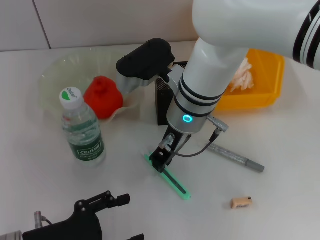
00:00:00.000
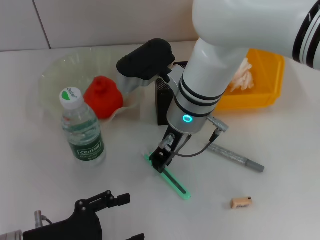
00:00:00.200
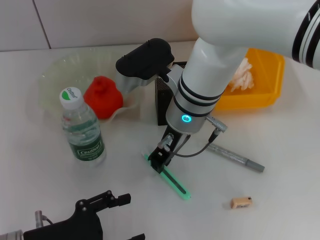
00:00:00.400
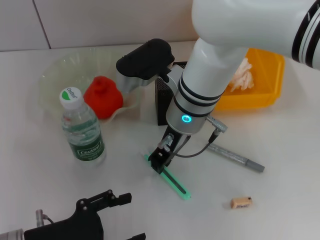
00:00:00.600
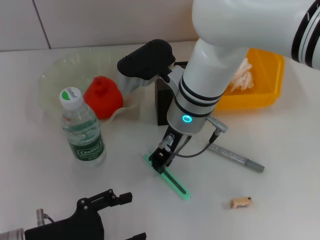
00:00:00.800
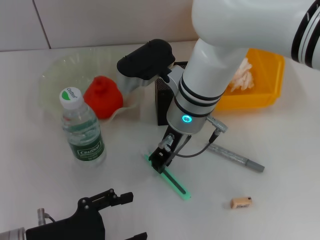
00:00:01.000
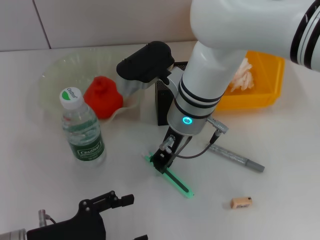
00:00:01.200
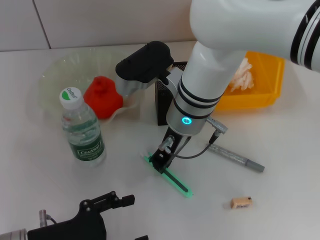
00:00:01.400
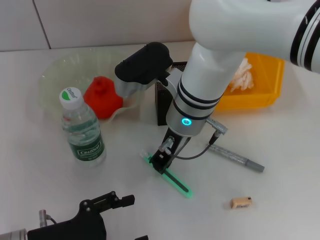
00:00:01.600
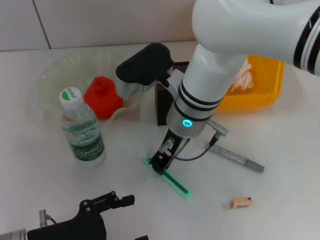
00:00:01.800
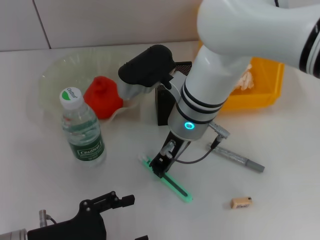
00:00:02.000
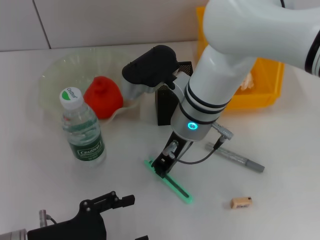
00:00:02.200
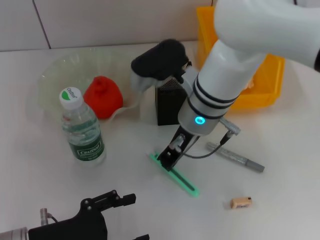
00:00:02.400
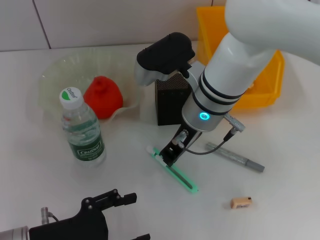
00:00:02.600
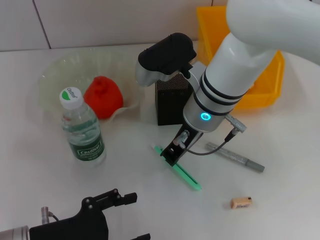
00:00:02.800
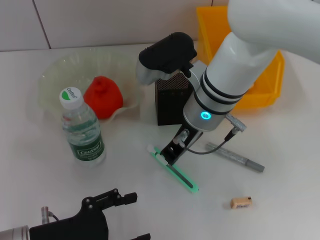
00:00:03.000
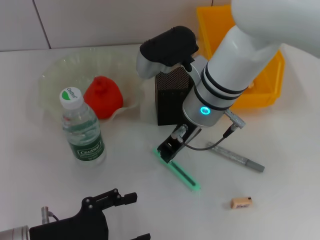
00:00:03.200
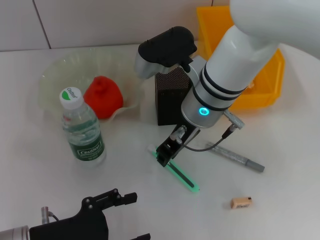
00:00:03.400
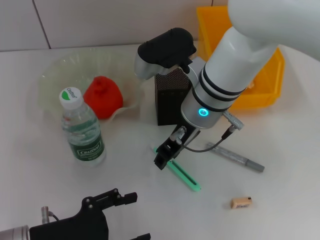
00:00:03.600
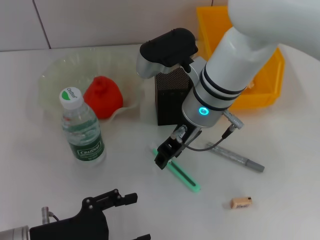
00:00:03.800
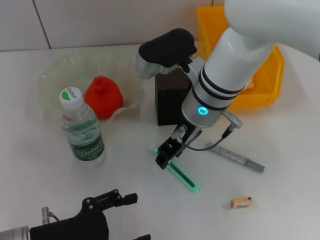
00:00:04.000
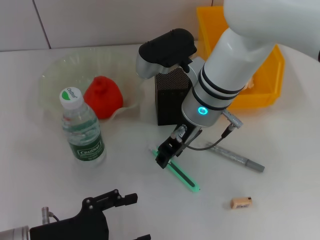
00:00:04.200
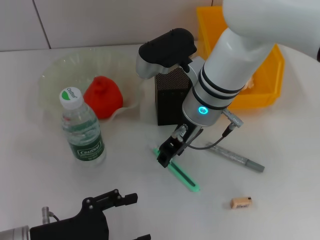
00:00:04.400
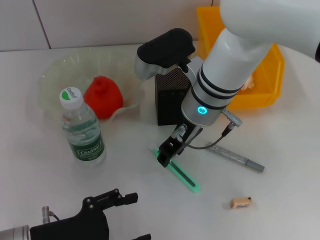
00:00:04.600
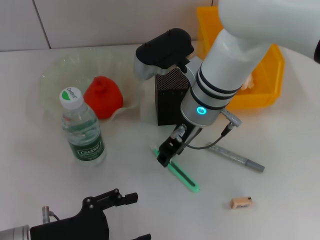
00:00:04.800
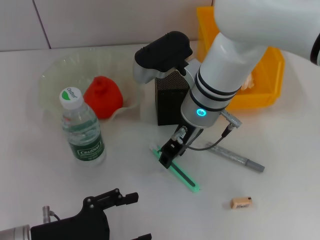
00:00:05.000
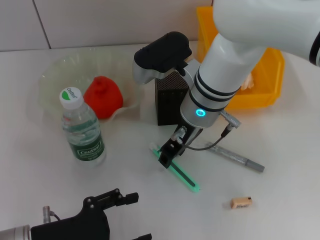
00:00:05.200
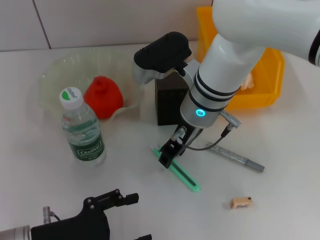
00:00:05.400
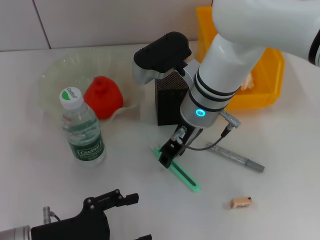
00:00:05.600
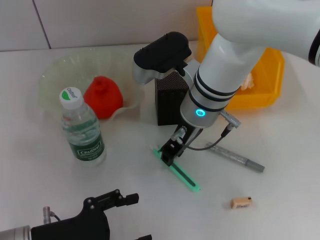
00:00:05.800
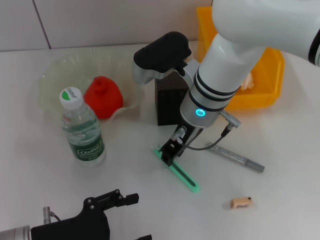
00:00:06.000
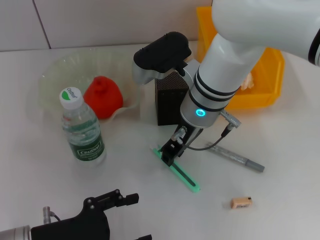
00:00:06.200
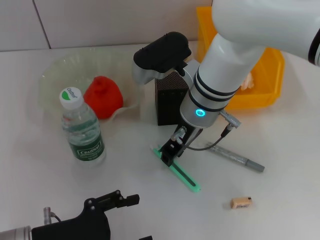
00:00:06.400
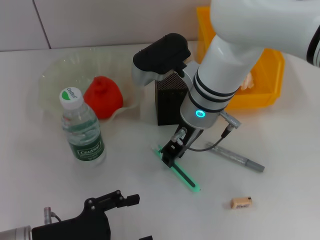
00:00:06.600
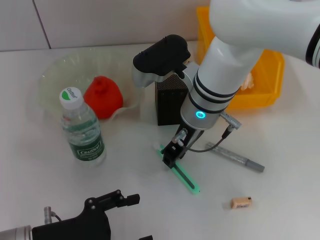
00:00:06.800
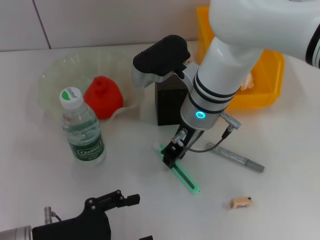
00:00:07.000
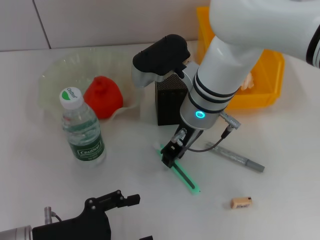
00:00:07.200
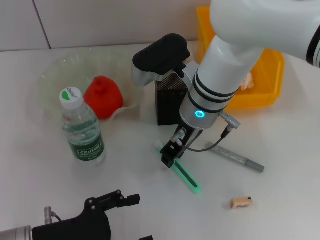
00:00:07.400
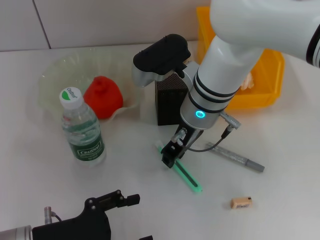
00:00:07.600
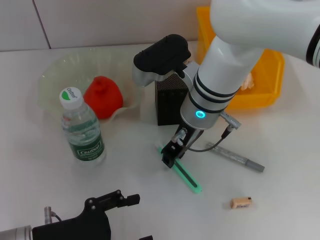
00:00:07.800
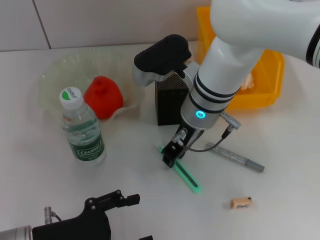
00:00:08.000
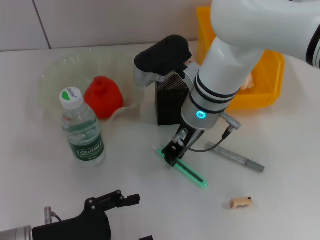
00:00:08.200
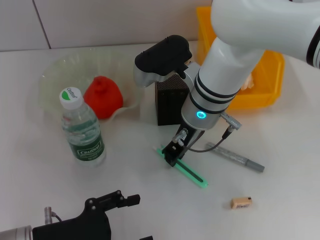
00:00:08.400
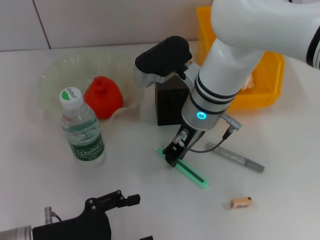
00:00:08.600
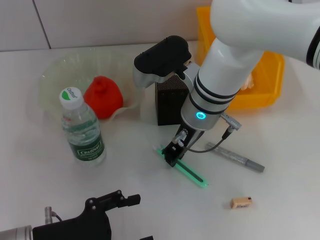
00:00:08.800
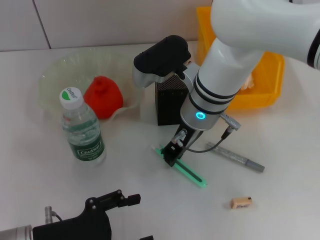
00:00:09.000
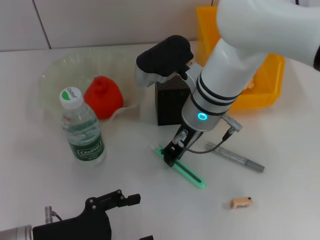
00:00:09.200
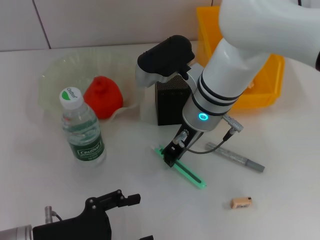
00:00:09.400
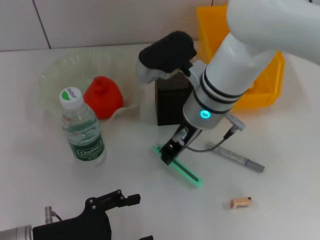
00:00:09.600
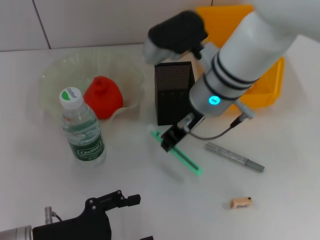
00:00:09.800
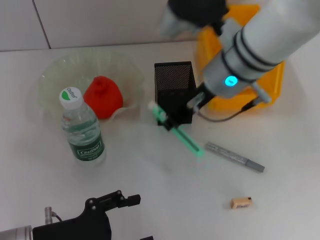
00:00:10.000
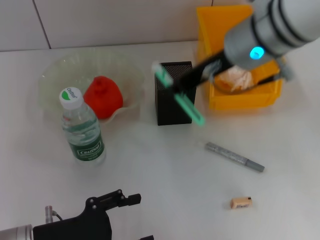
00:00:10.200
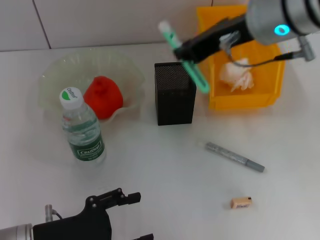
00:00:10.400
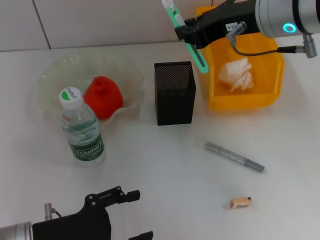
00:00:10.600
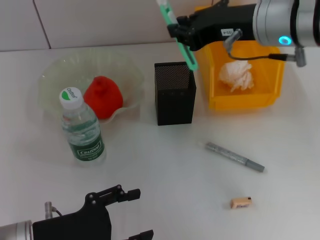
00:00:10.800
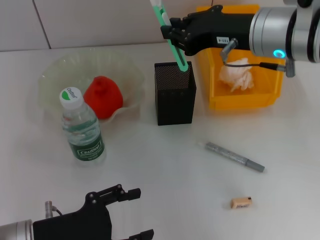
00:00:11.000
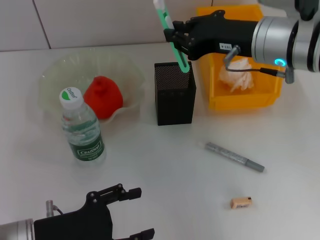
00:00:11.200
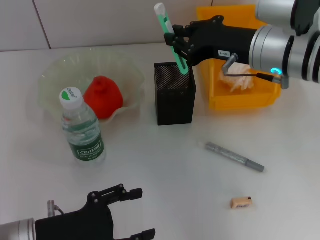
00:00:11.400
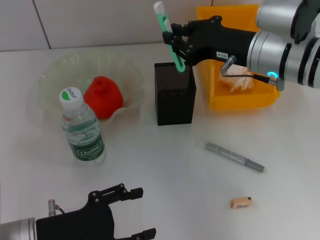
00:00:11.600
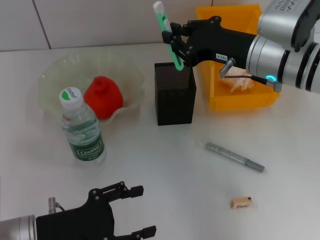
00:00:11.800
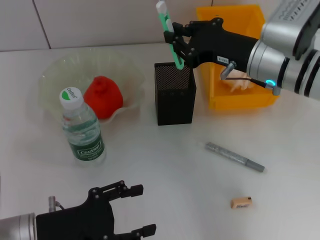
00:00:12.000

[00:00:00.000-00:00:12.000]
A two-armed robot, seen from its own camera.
Step, 00:00:00.000 to 00:00:09.000: Grab the blue utility knife with the right hand.
00:00:00.000 to 00:00:01.600: Both grippers stay put.
00:00:01.600 to 00:00:03.000: There are only small adjustments of the grippers.
00:00:03.000 to 00:00:04.400: The right gripper opens up.
00:00:04.400 to 00:00:09.000: Both grippers stay about where they are.
00:00:09.000 to 00:00:10.400: The right gripper travels upward and to the right by some 15 cm.
00:00:10.400 to 00:00:12.000: The right gripper travels downward by some 10 cm.

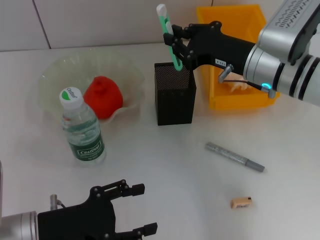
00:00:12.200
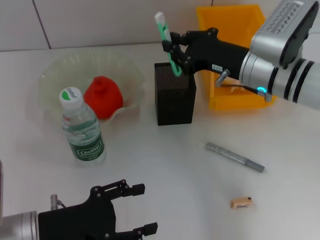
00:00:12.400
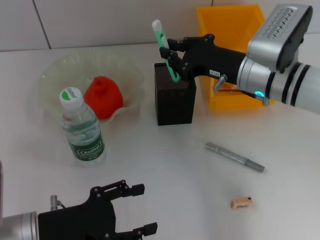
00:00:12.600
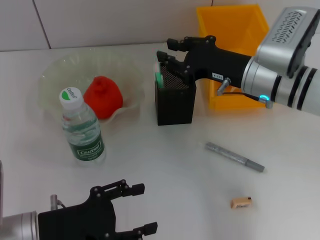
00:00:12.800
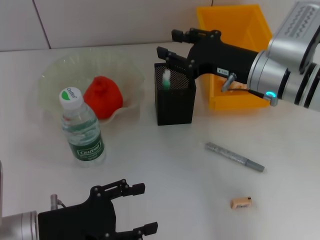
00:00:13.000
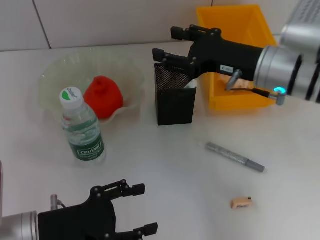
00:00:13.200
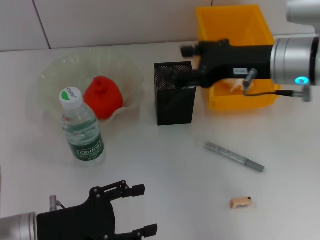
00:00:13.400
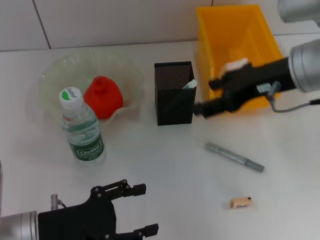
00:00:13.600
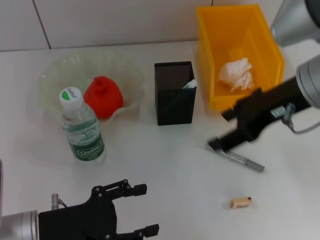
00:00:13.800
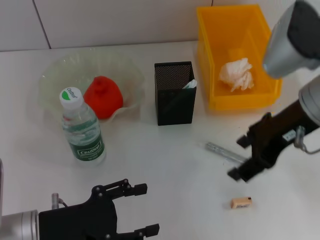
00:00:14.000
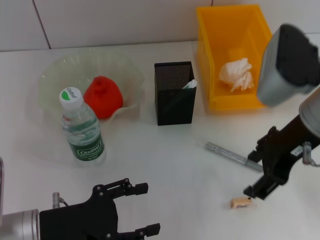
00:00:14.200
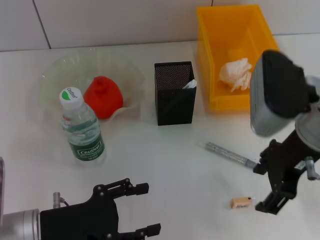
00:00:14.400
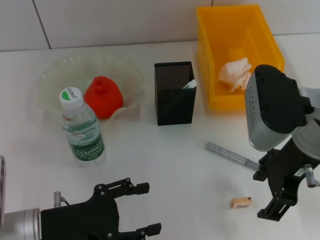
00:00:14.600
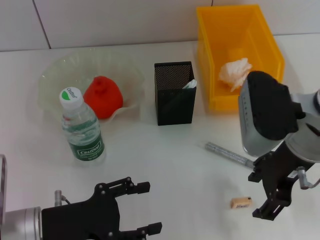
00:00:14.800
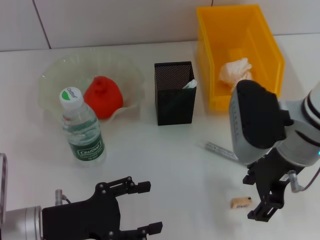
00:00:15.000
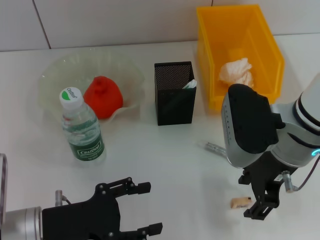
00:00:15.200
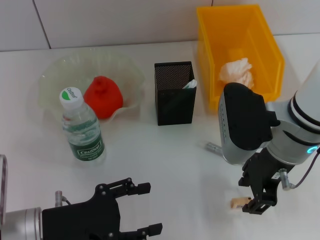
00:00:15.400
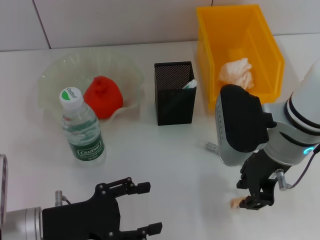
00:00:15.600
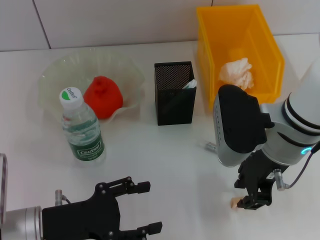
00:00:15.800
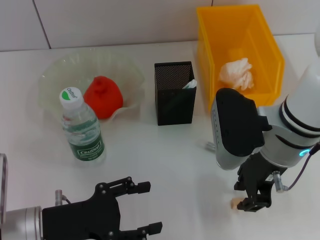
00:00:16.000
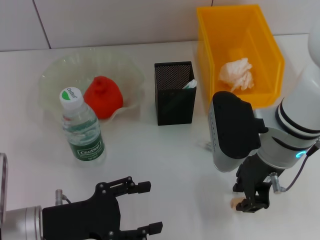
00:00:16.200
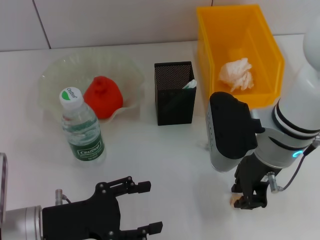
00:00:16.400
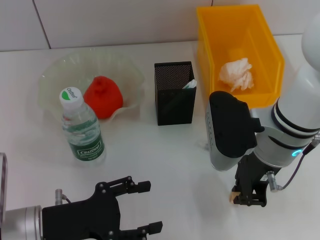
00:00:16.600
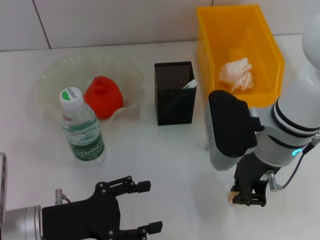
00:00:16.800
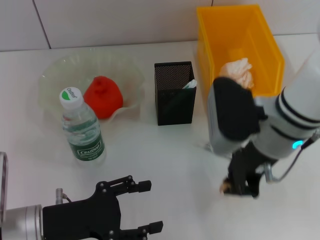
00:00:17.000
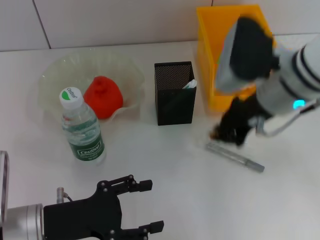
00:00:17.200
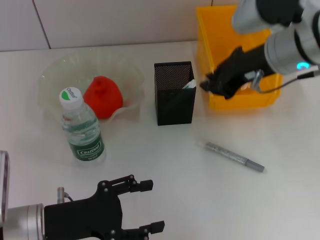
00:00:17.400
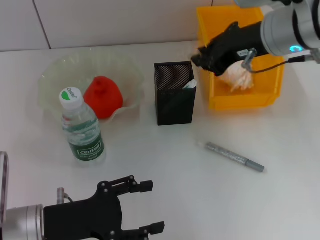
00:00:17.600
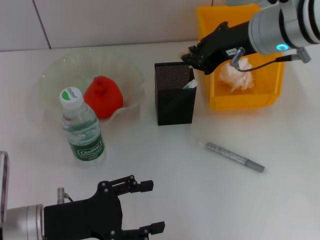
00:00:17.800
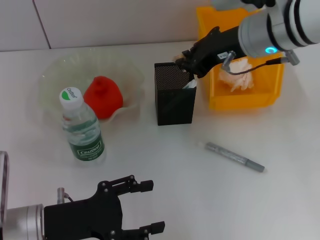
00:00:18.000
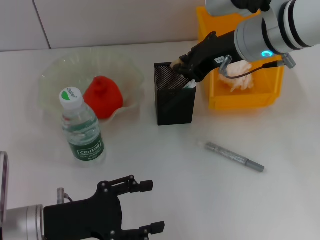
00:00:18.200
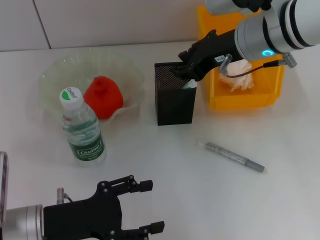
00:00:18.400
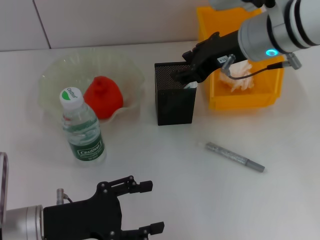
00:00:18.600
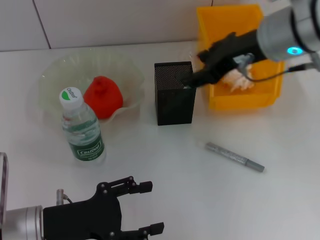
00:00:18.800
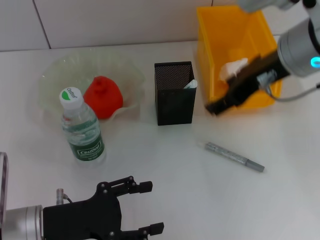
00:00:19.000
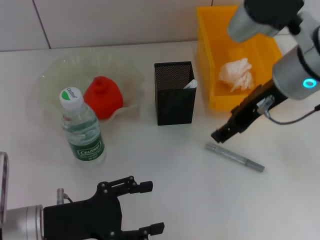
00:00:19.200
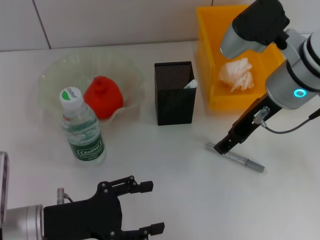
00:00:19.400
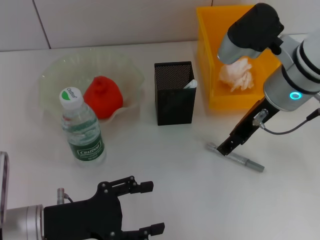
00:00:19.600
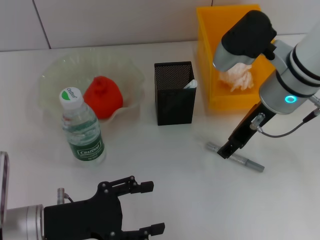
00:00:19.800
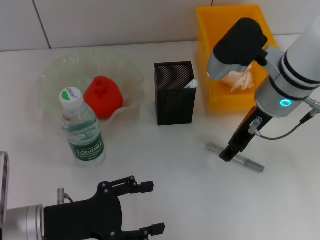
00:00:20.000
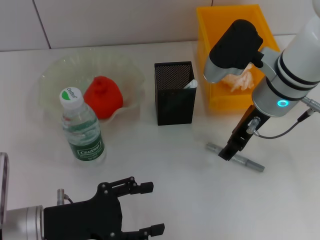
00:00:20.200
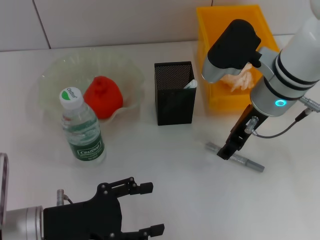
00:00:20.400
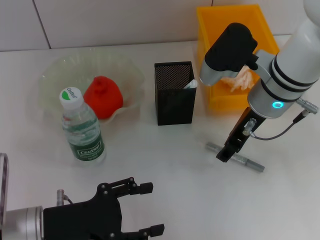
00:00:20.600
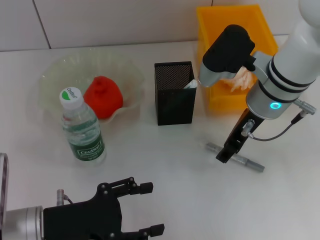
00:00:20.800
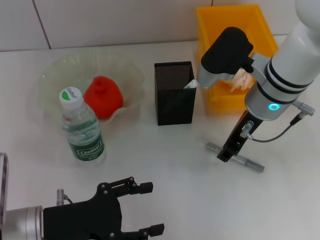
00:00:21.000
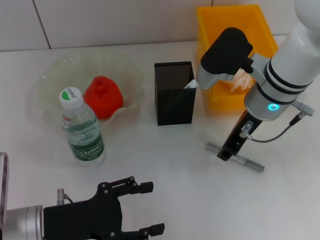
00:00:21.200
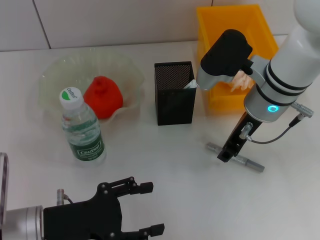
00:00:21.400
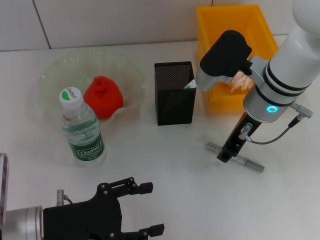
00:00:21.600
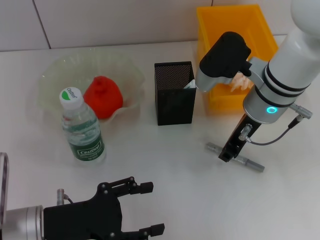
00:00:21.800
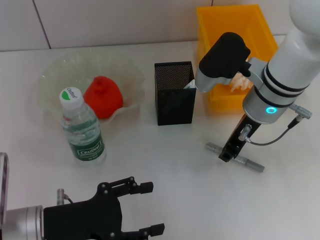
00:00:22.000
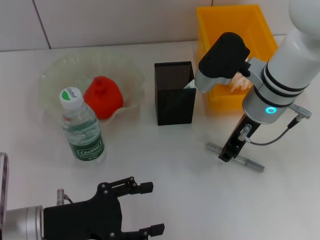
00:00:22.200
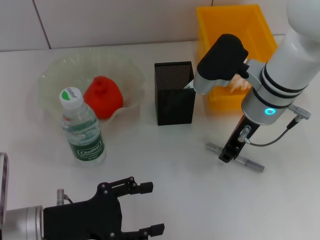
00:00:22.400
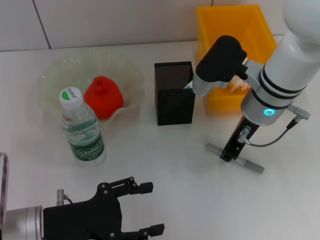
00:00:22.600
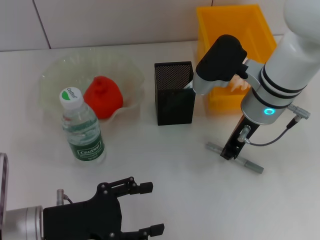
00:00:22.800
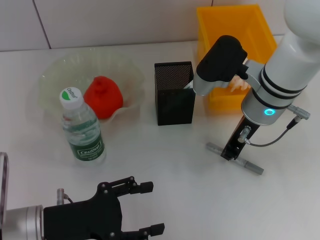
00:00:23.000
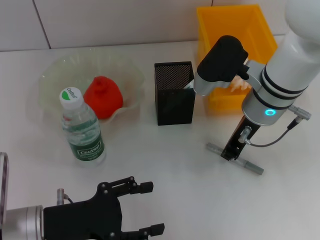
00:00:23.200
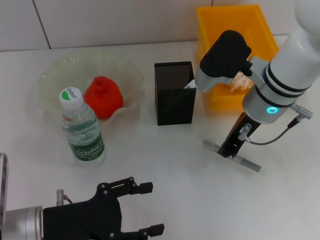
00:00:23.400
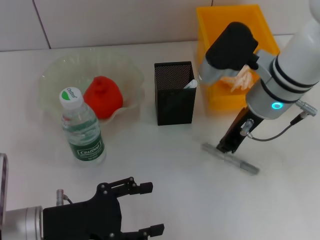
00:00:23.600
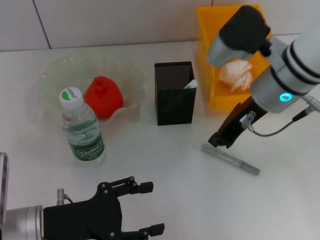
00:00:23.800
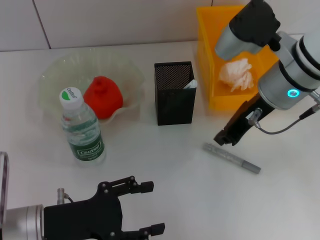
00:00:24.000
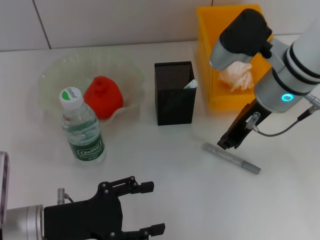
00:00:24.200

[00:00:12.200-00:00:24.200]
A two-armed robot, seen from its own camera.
Step, 00:00:13.200 to 00:00:16.600: Grab the eraser with the right hand.
Step, 00:00:17.000 to 00:00:18.600: Put the eraser into the pen holder with the right hand.
00:00:12.200 to 00:00:13.800: The right gripper travels upward and backward by approximately 10 cm, and opens up.
00:00:13.800 to 00:00:15.200: The right gripper shifts about 5 cm downward.
00:00:15.200 to 00:00:16.600: The right gripper closes.
00:00:16.600 to 00:00:18.200: The right gripper is displaced forward and upward by approximately 10 cm.
00:00:18.200 to 00:00:19.800: The right gripper ends up roughly 5 cm from where it was, and opens.
00:00:19.800 to 00:00:21.200: The grippers make only small movements.
00:00:21.200 to 00:00:22.600: The right gripper closes its fingers.
00:00:22.600 to 00:00:24.200: The grippers make only small movements.
